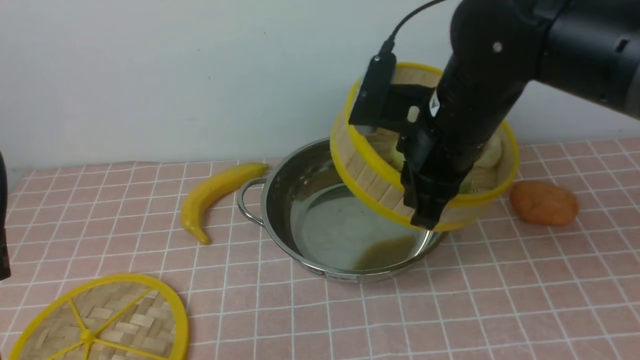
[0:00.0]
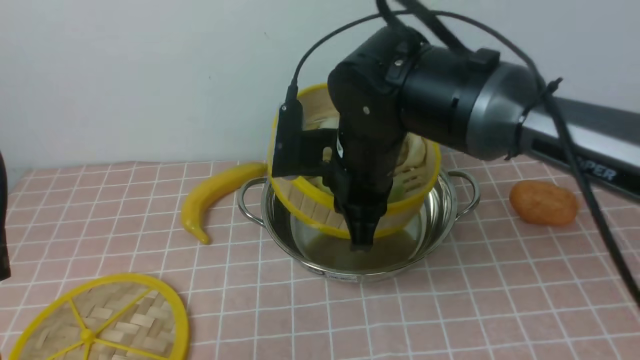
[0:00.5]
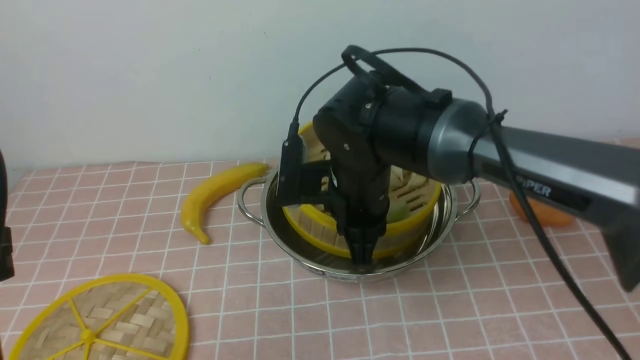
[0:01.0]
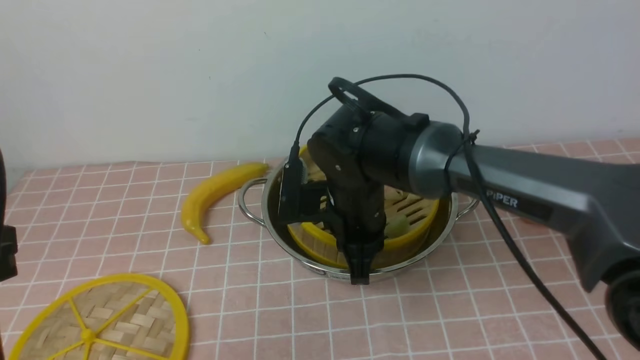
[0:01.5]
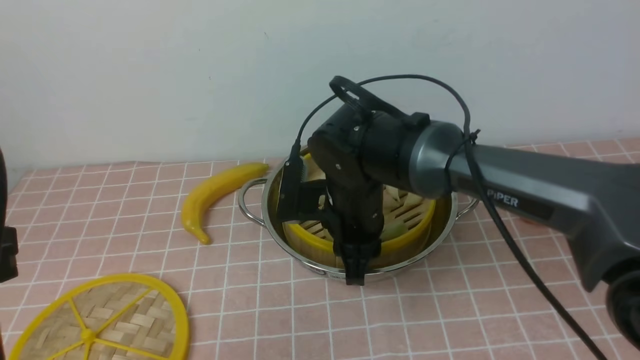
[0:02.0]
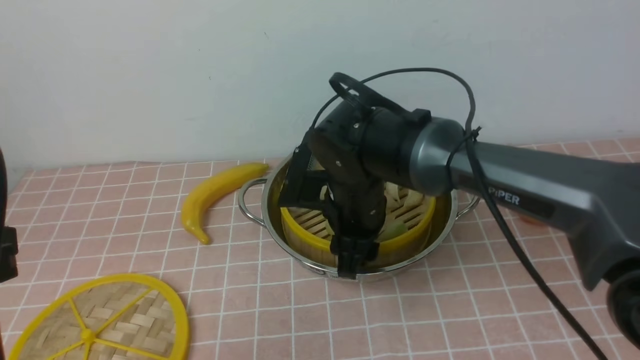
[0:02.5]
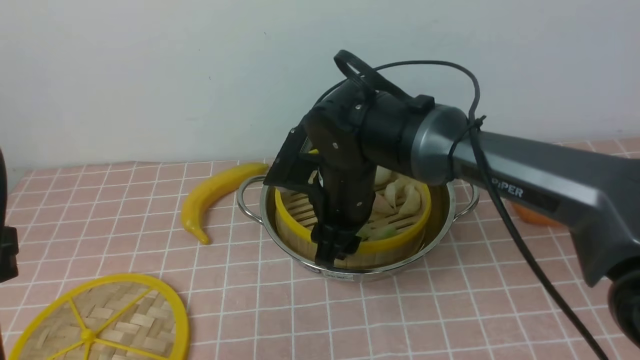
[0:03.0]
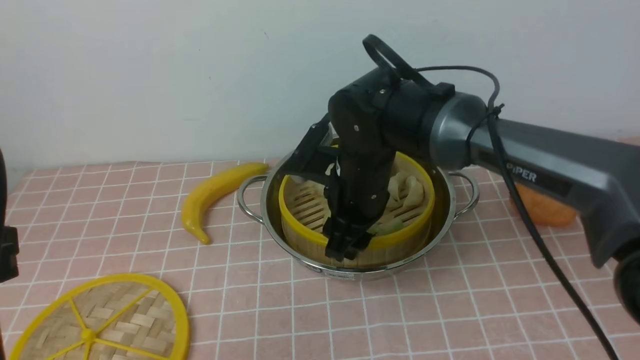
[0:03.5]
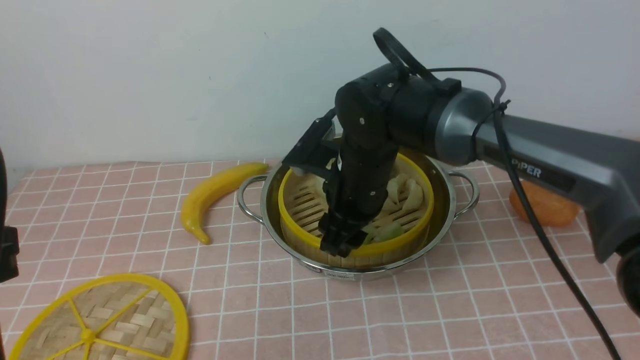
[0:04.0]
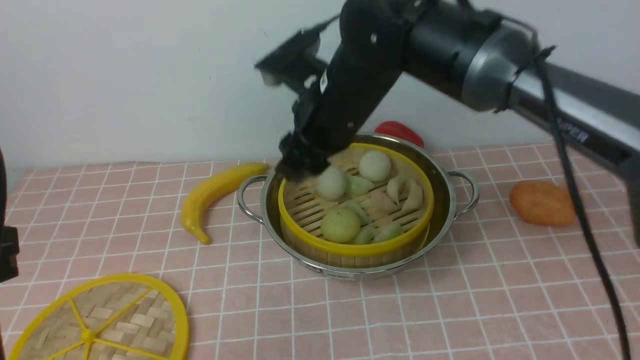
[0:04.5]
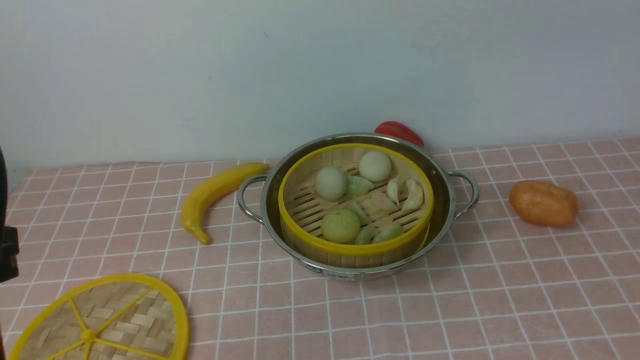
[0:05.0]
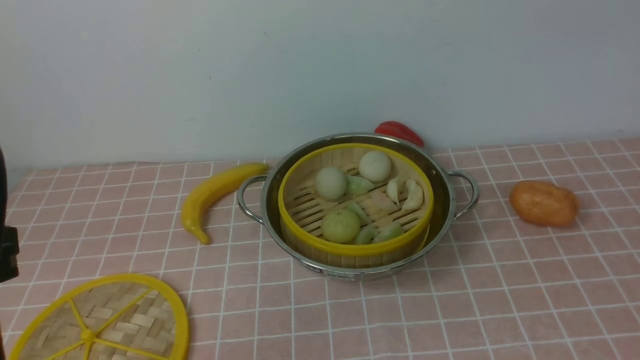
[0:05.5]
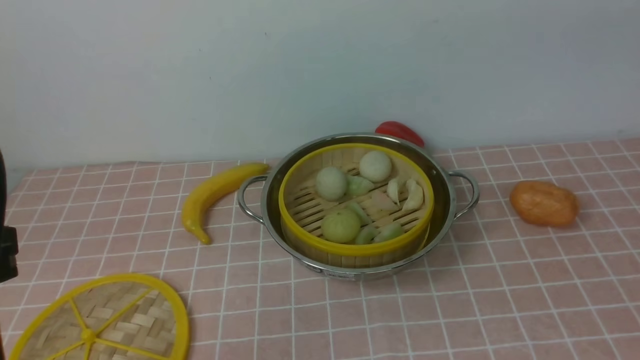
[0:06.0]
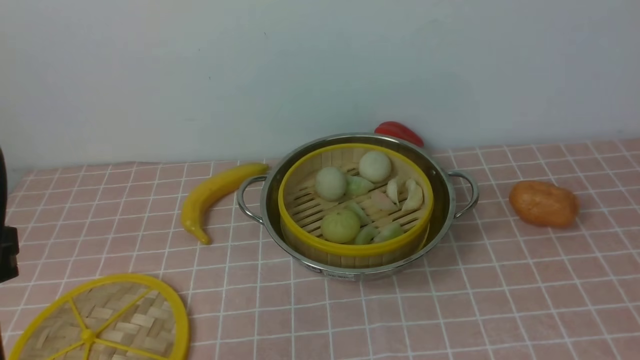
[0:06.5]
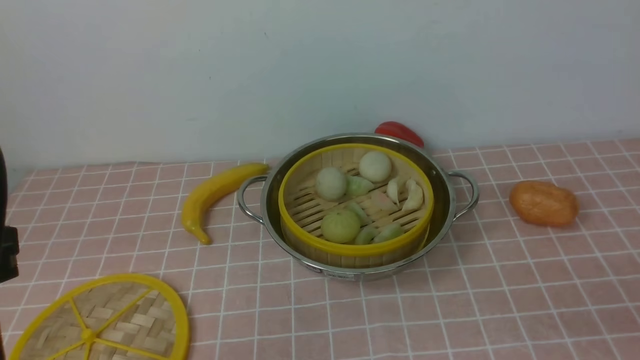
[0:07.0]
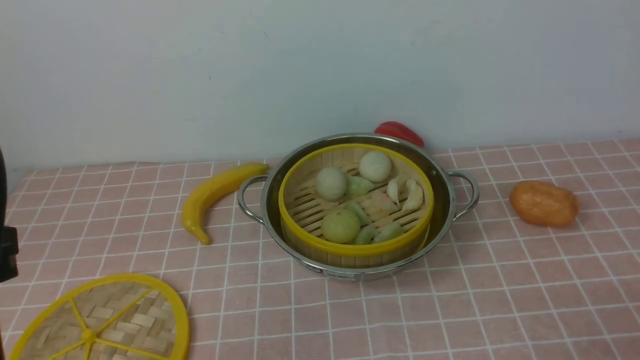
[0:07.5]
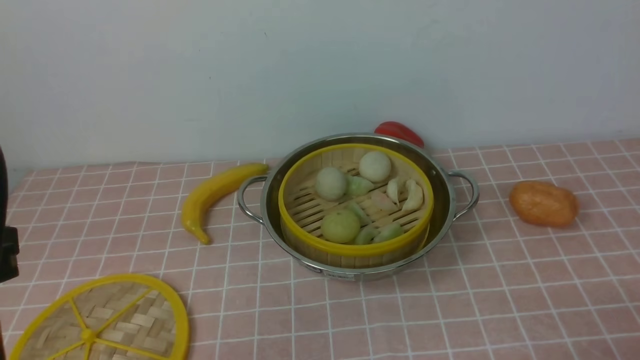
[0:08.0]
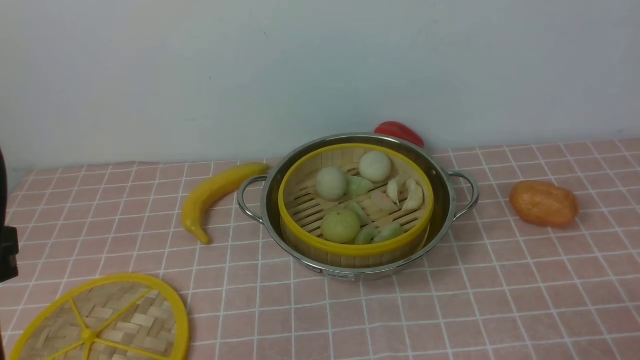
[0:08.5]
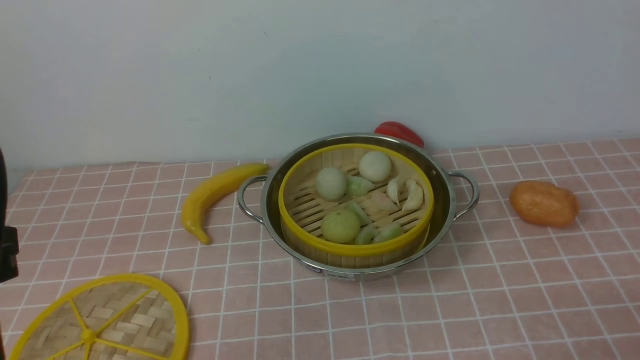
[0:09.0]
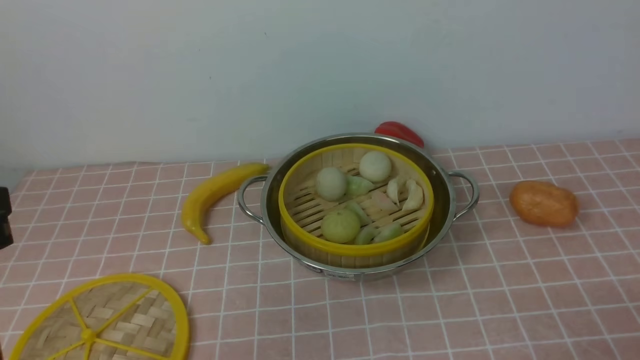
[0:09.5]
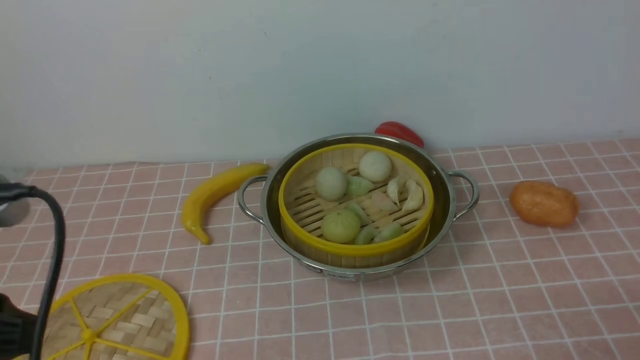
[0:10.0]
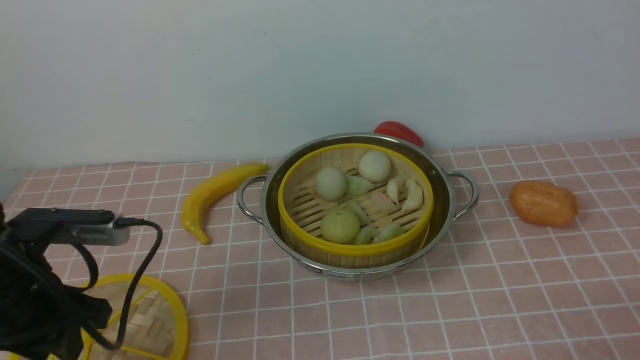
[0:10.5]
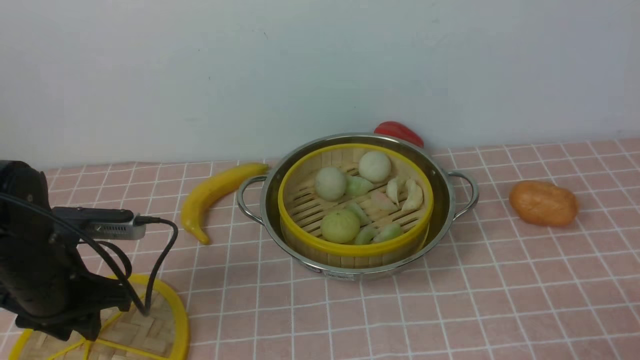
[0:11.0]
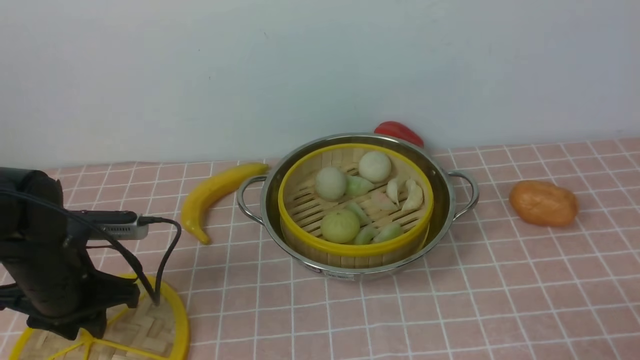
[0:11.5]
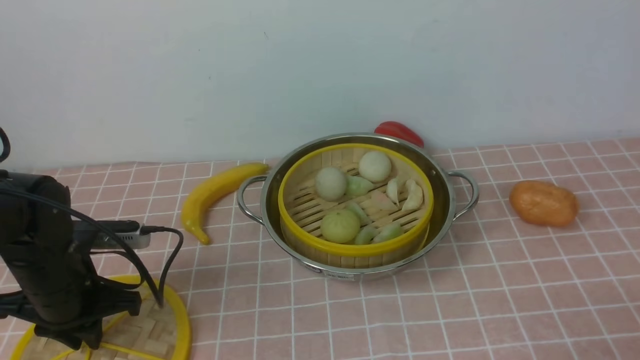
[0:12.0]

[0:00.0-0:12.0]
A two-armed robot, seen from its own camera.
Task of the whole recording: place the steamer in the pot on the pink tablecloth, and put the lid on the steamer.
Step, 0:00.0 to 0:04.0: use the right arm to put the steamer into the iron steamer pot in the middle.
0:00.0 to 0:02.0: The right gripper heads downward and to the left, covering about 15 cm.
0:02.0 to 0:04.0: The right gripper opens up.
0:04.0 to 0:06.0: The right gripper heads upward, backward and to the right, covering some 40 cm, and closes.
0:08.0 to 0:10.0: The grippers move only a little.
0:10.0 to 0:12.0: The left gripper travels downward and forward by roughly 25 cm, and closes its fingers.

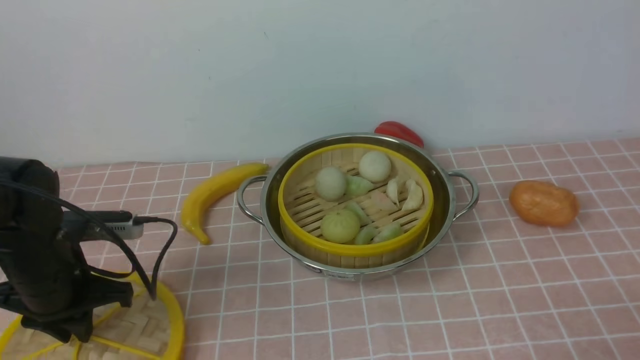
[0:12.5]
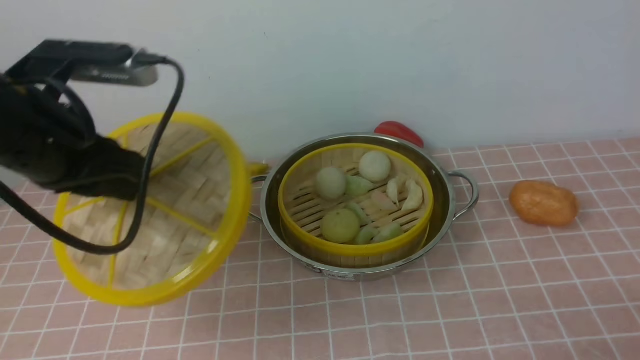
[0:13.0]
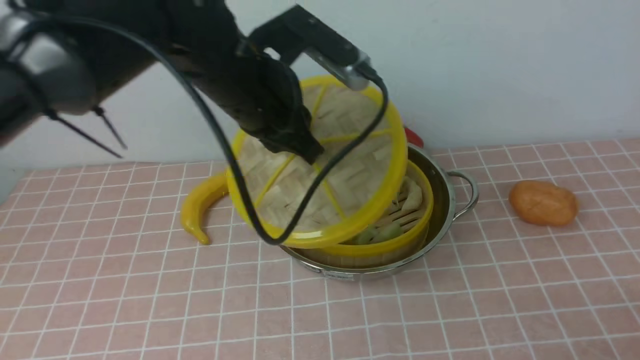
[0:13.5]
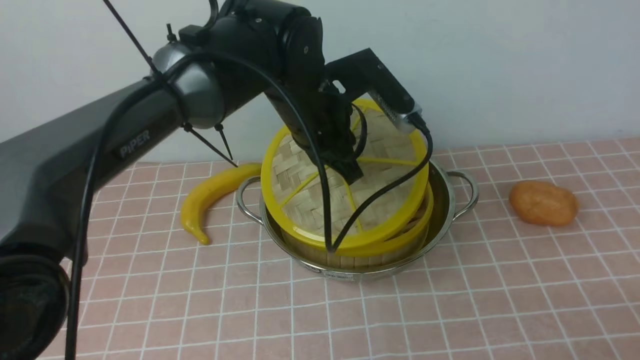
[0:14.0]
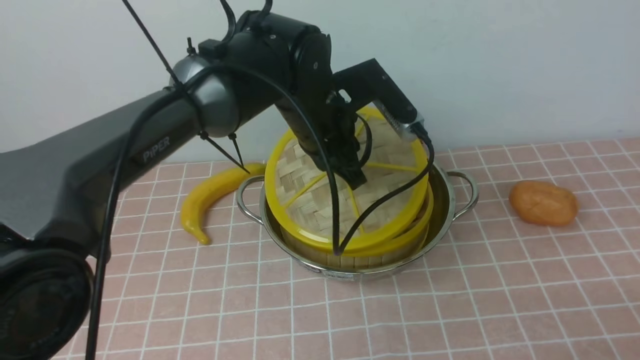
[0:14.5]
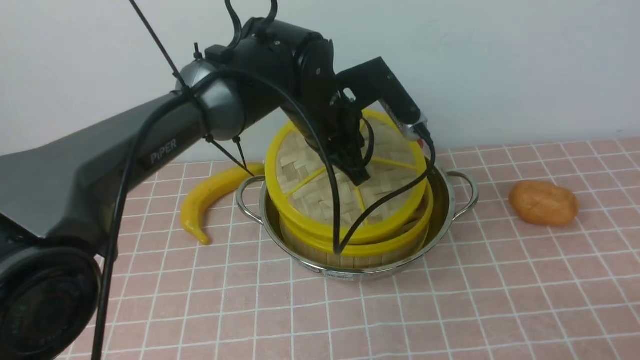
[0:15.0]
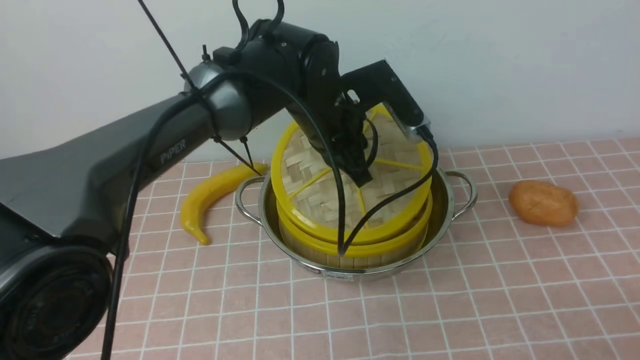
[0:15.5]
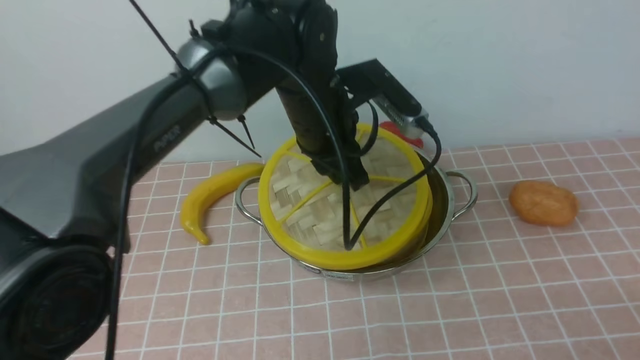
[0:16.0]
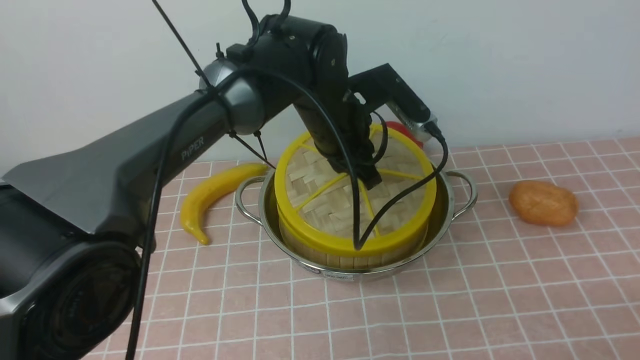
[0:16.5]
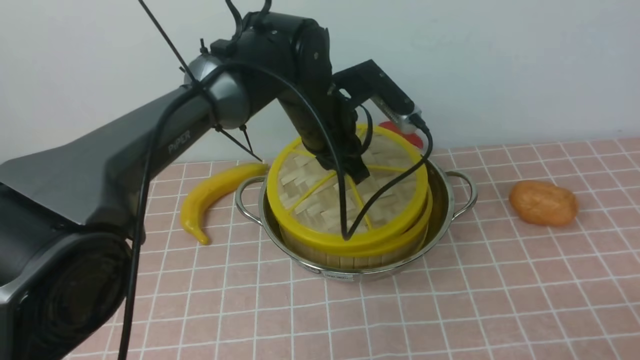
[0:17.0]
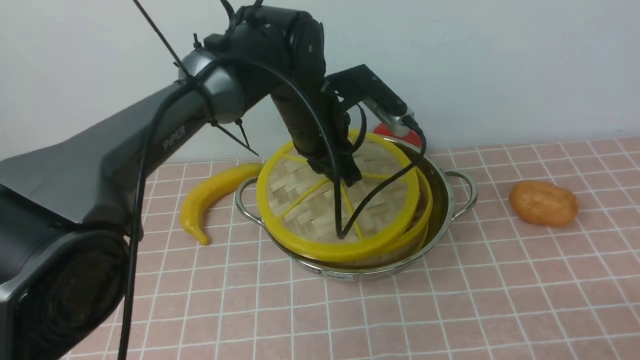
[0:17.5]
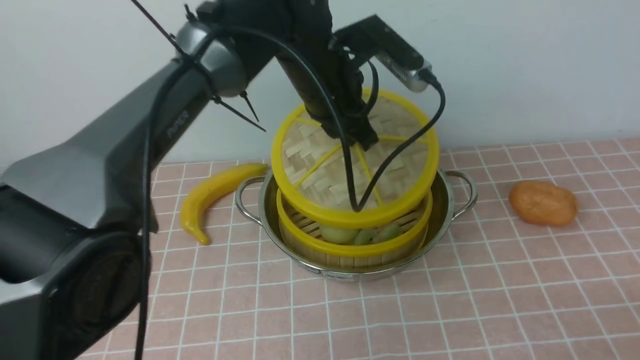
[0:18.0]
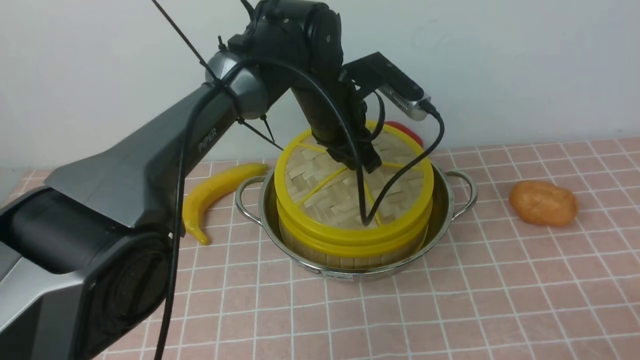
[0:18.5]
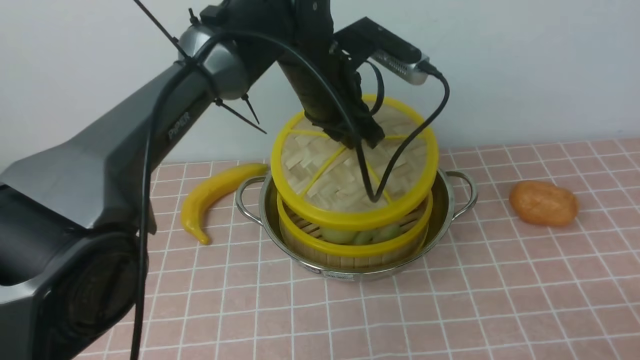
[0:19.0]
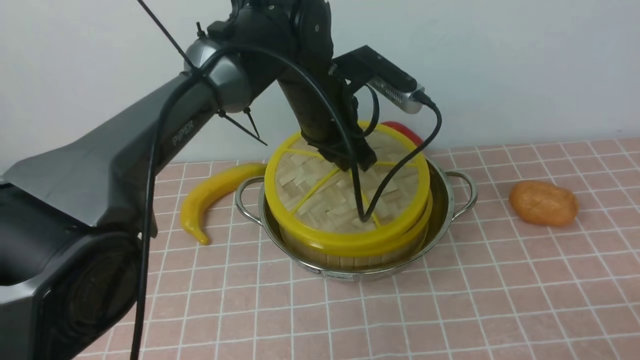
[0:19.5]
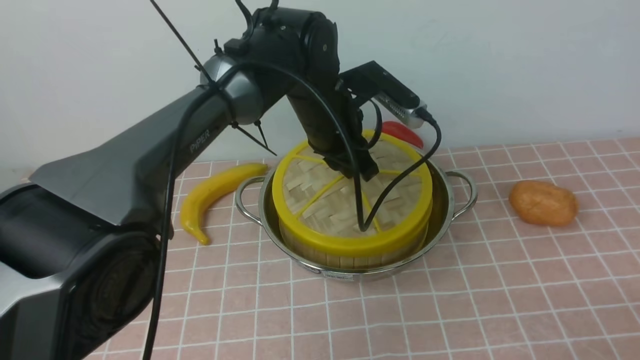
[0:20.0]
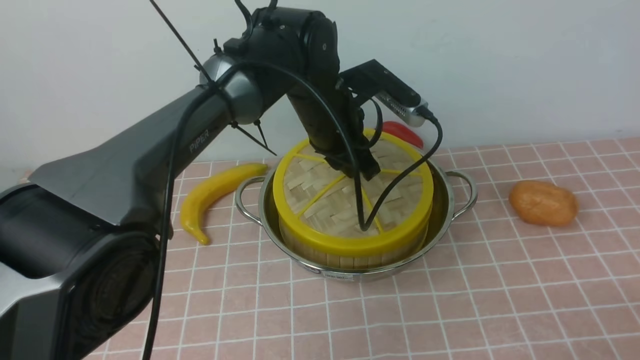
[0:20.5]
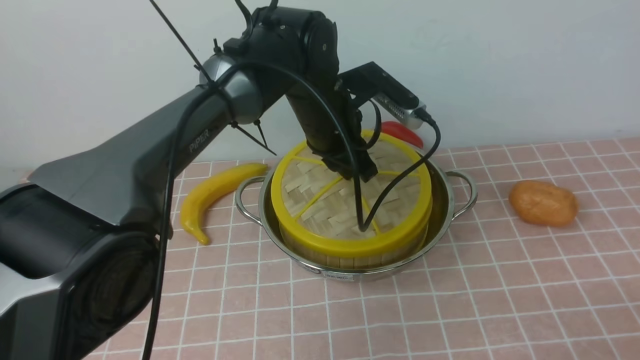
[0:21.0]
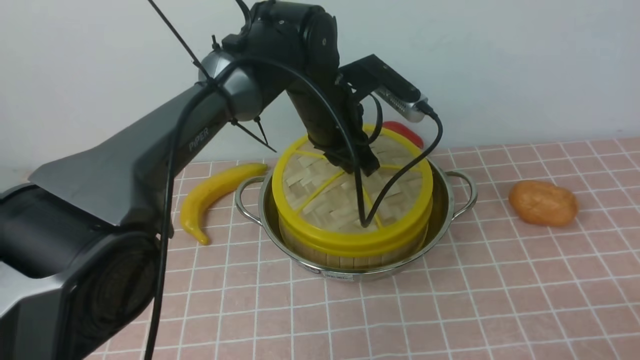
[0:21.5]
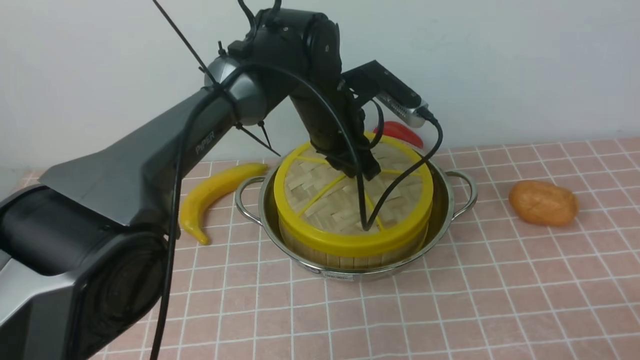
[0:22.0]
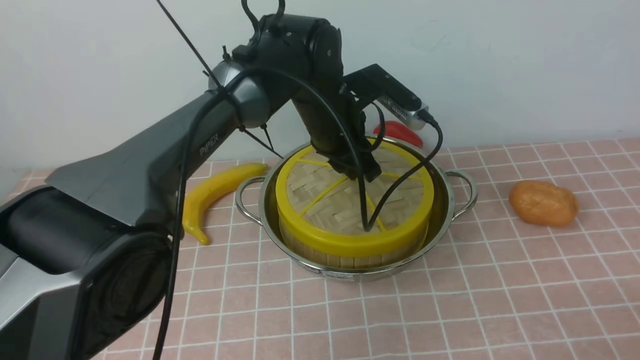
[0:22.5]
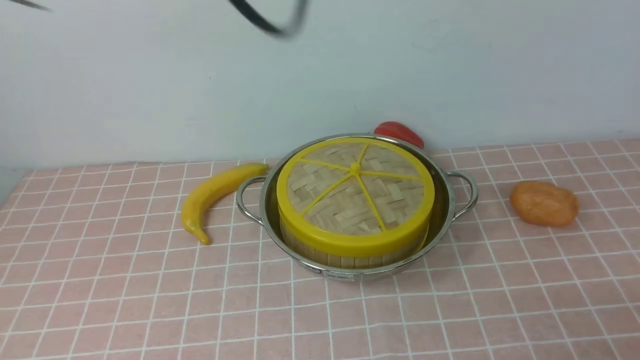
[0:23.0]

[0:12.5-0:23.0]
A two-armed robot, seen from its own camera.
Task of the whole recording: place the steamer in the pot on the pink tablecloth, and put the lid on the steamer.
Step, 0:13.0 to 0:22.5: use the left arm to place the steamer lid on the steamer.
0:12.5 to 0:14.5: The left gripper heads to the right and forward, covering some 30 cm.
0:16.5 to 0:19.0: The grippers stay close to where they were, moving slightly.
0:21.0 to 0:23.0: The left gripper heads upward, covering approximately 20 cm.
